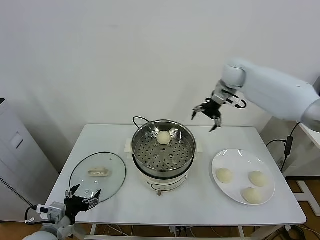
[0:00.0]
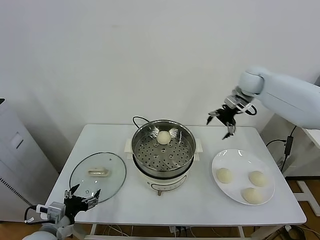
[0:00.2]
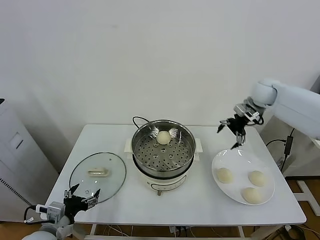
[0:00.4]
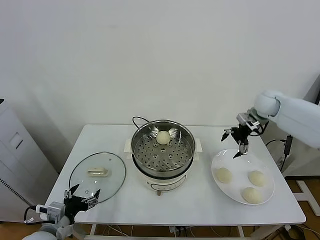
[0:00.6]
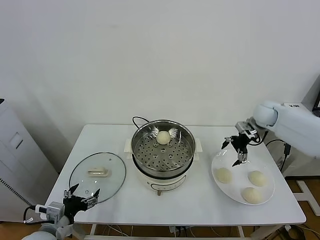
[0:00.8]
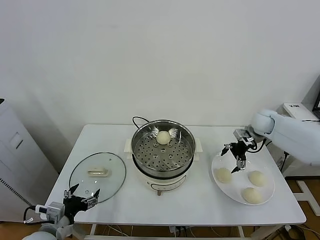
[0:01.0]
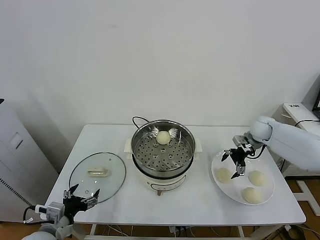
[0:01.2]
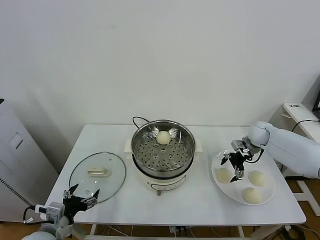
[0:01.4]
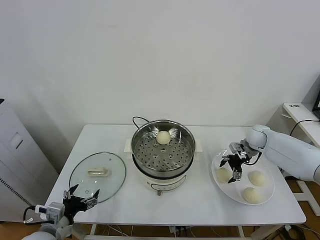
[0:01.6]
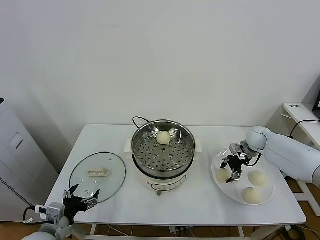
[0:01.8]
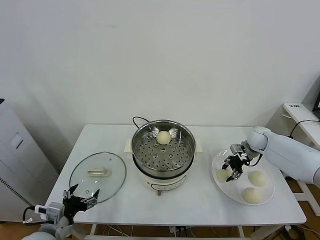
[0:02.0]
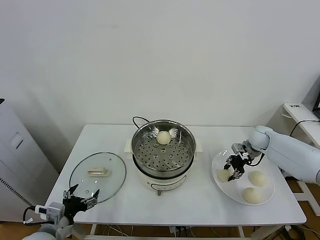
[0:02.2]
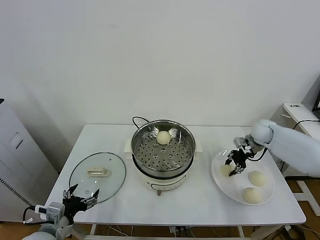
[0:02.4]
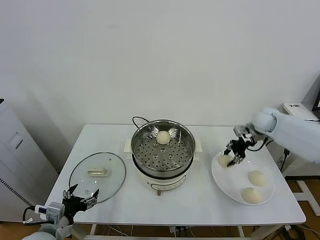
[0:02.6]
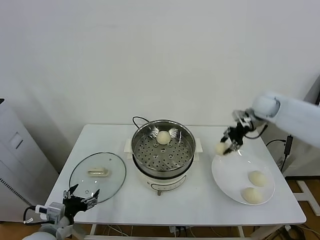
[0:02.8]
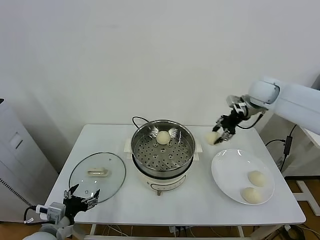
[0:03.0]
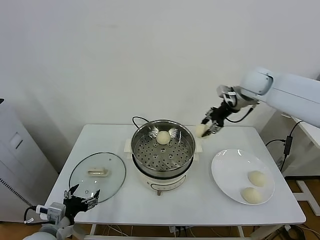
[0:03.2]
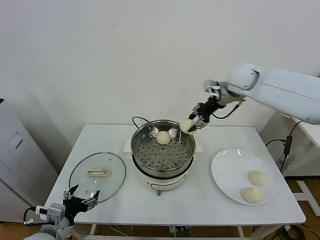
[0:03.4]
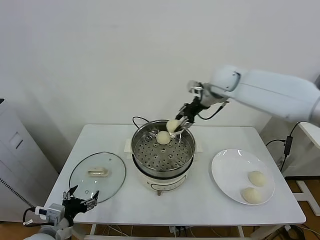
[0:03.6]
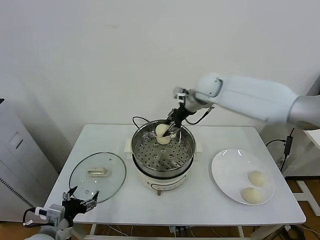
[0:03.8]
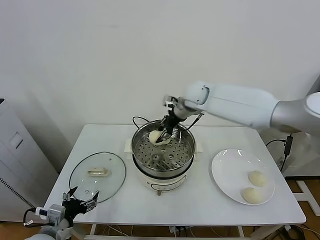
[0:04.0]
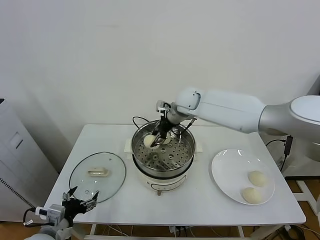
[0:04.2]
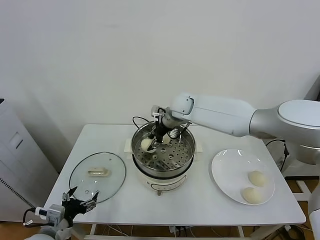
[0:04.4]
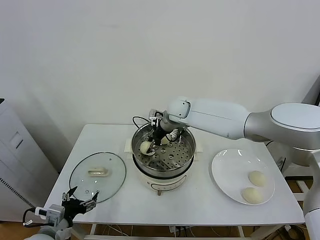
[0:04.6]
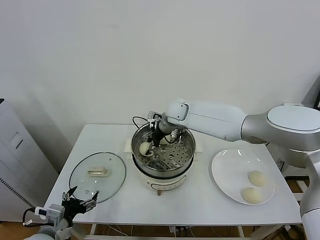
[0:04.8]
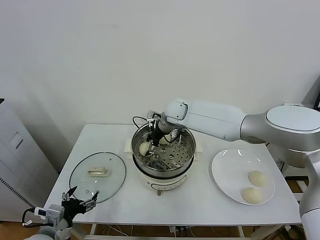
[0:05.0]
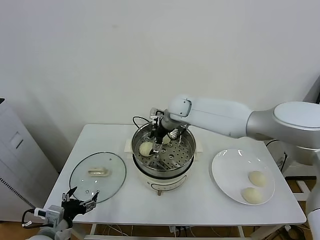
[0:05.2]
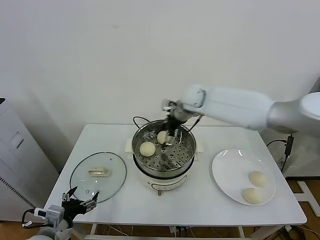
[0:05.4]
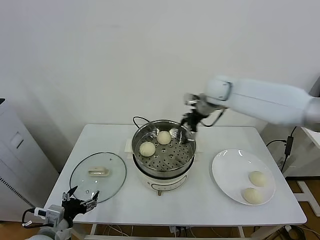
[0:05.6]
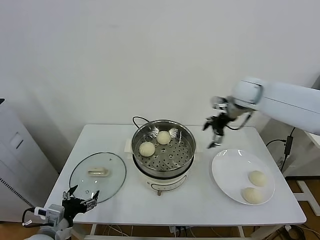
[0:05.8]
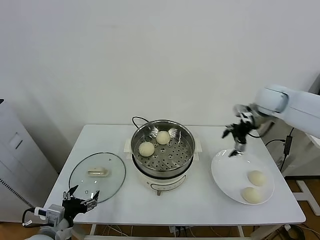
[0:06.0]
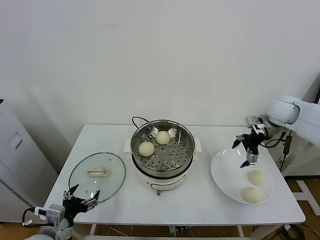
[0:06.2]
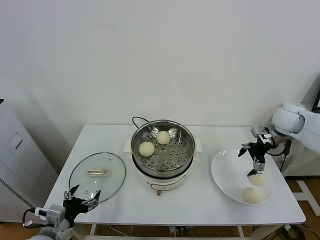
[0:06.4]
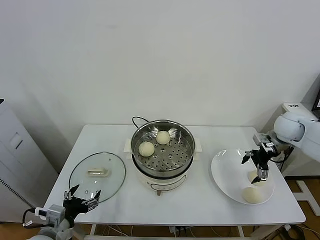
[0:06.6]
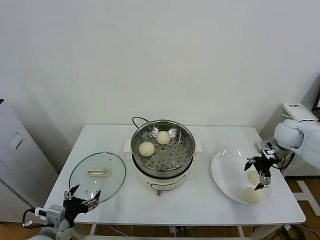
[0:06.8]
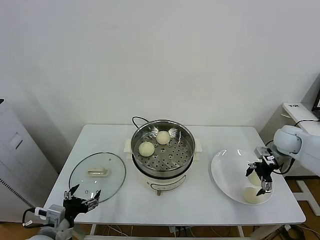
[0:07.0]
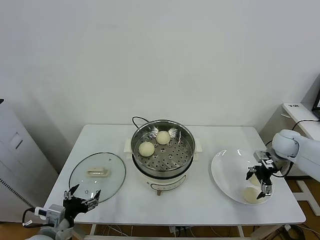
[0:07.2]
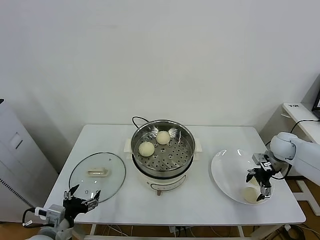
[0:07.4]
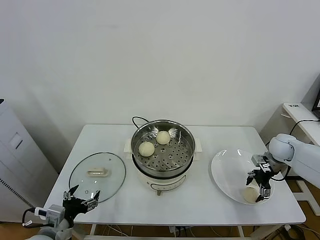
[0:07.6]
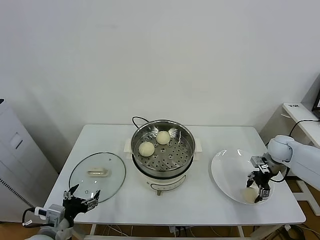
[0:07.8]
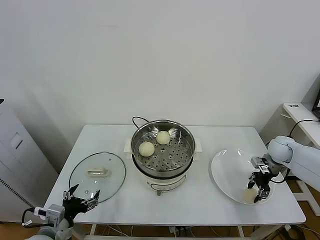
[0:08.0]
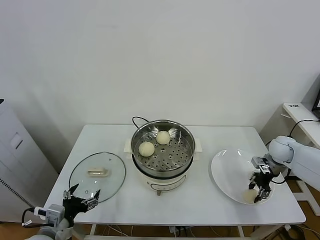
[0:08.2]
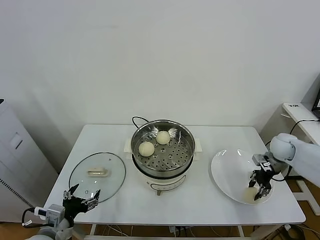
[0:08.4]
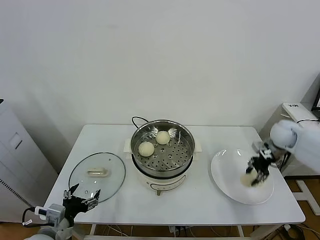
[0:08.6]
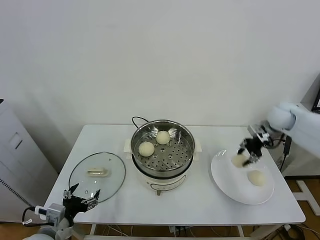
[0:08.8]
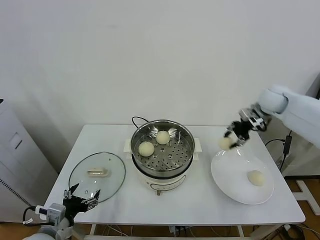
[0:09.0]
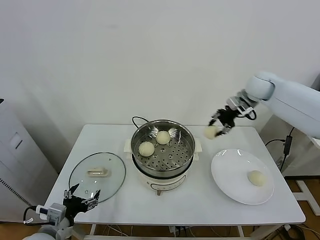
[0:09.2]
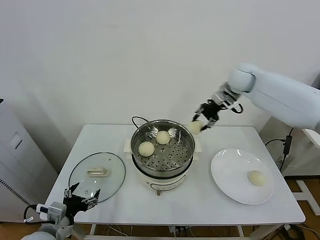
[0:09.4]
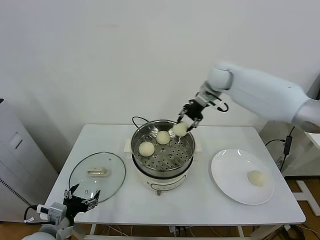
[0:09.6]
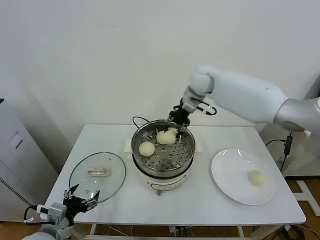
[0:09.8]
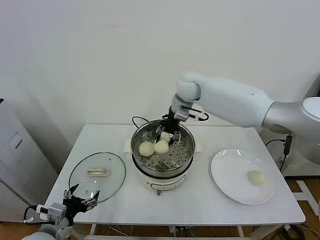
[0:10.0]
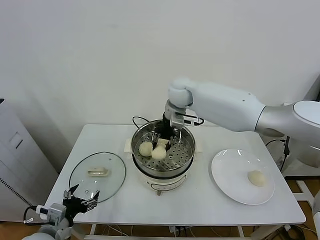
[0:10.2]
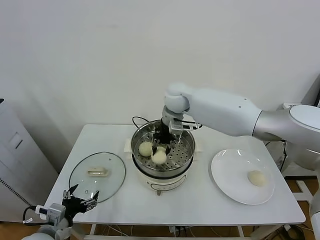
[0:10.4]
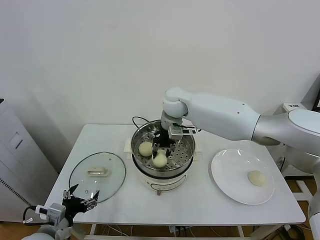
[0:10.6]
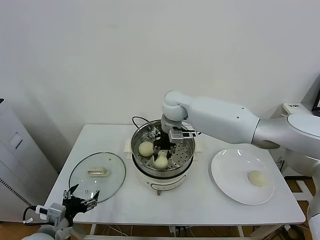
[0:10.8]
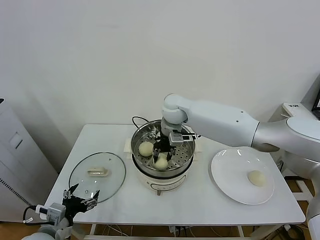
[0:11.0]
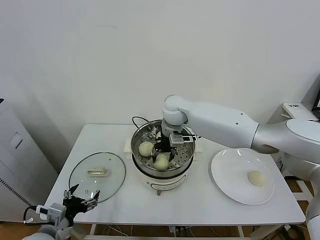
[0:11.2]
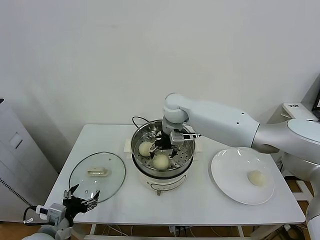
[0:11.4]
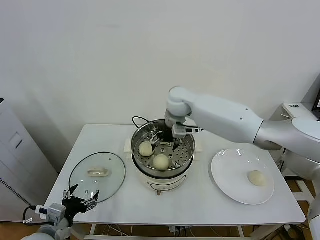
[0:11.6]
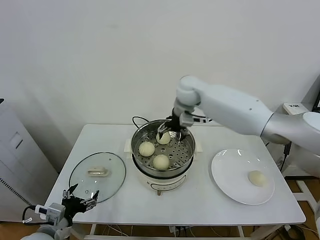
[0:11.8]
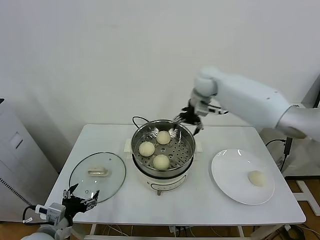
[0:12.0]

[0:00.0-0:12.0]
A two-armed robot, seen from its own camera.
Task of the whole recording: take steamed baozi put them in steamer.
Step, 0.0 to 1.8 s: Grasp the baozi in the plate with right gripper.
Step, 2.0 to 5.0 s: Place the baozi on the steamer with right gripper.
Step, 5.2 to 7.8 s: Grasp the baozi in the plate with right gripper.
Step, 8.0 to 11.4 s: Place the baozi on the steamer with right gripper.
0.0 to 1.6 s: The right gripper shifts some 30 cm downward and to the right.
1.6 to 3.0 s: The right gripper is displaced upward by some 20 cm, and closes its fingers.
3.0 to 4.4 s: The right gripper travels to the left by some 25 cm.
4.4 to 6.0 s: The right gripper is displaced to the right by roughly 25 cm, and opens its fingers.
6.0 to 7.6 s: The right gripper moves downward and to the right, some 20 cm.
7.6 to 9.0 s: The right gripper heads upward, to the left and forward, covering roughly 20 cm, and closes up.
9.0 to 10.4 s: The right gripper heads to the left, covering roughly 35 cm.
10.4 to 12.0 s: The right gripper moves to the right, approximately 10 cm, and opens its fingers.

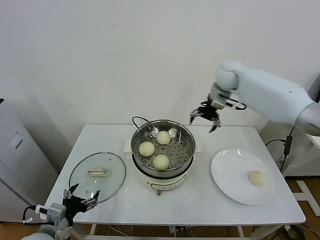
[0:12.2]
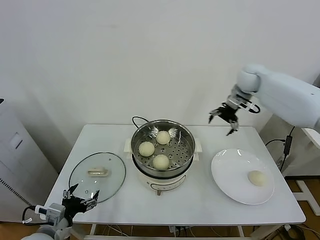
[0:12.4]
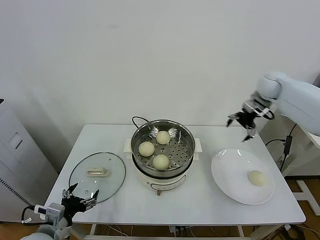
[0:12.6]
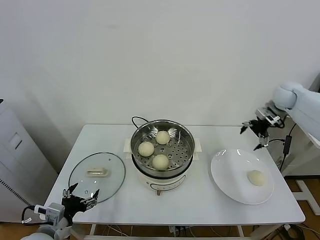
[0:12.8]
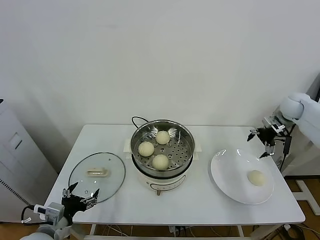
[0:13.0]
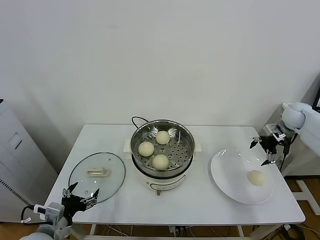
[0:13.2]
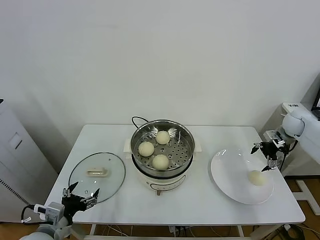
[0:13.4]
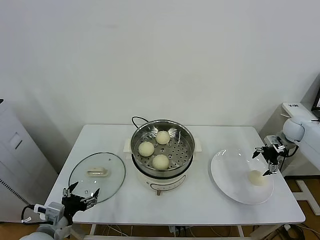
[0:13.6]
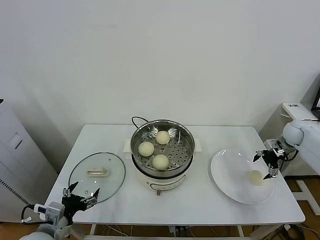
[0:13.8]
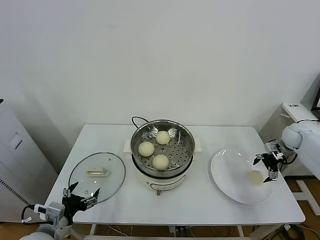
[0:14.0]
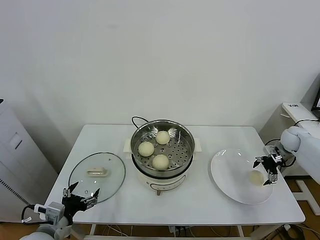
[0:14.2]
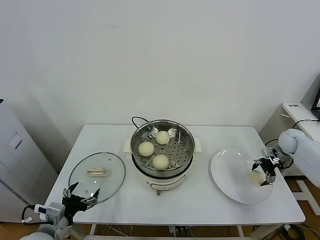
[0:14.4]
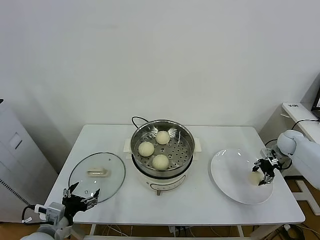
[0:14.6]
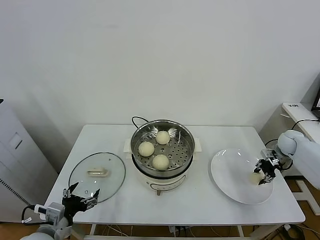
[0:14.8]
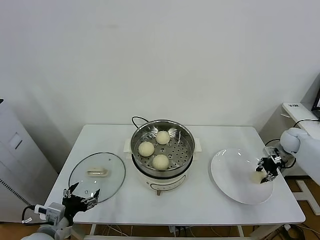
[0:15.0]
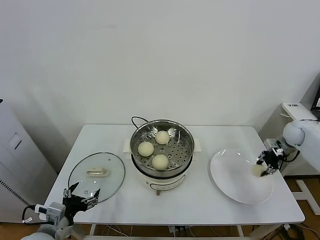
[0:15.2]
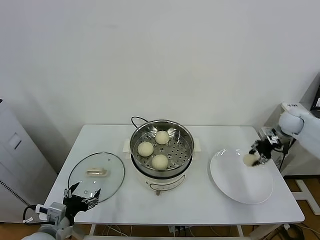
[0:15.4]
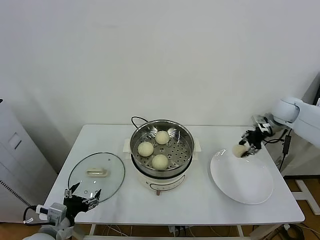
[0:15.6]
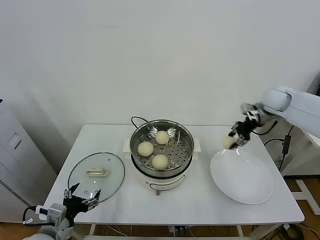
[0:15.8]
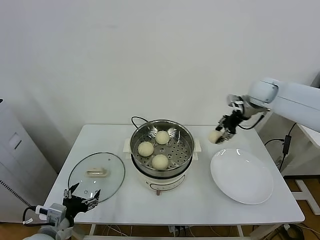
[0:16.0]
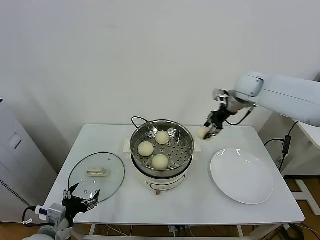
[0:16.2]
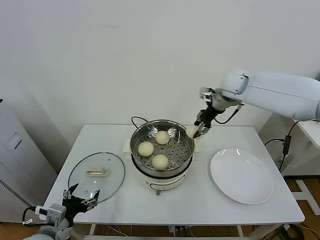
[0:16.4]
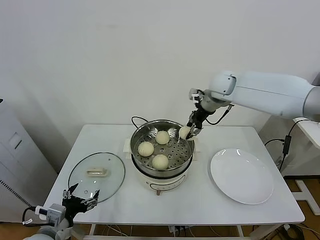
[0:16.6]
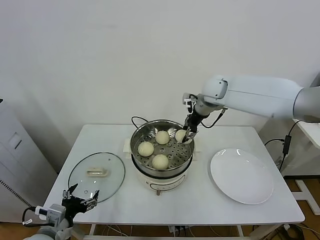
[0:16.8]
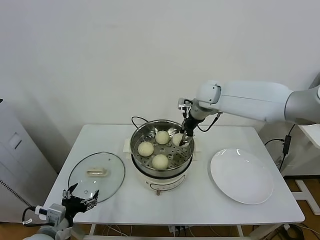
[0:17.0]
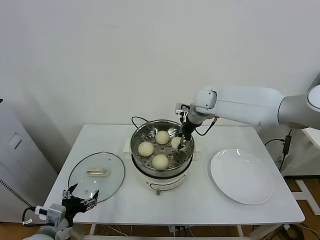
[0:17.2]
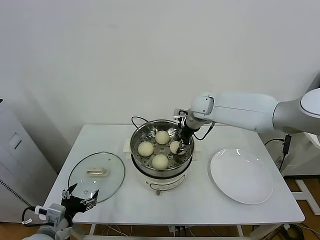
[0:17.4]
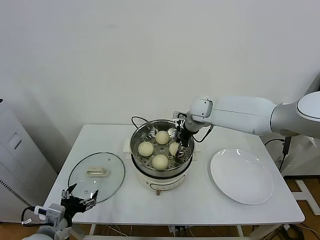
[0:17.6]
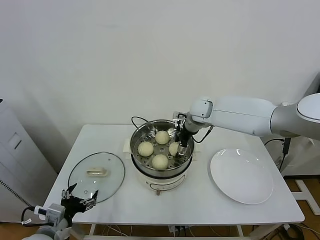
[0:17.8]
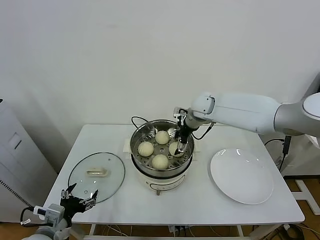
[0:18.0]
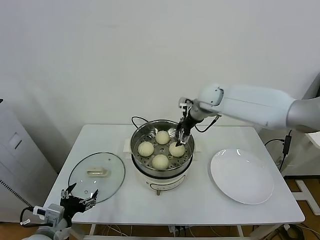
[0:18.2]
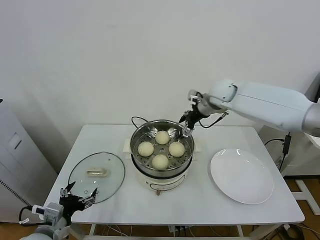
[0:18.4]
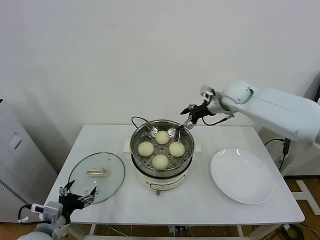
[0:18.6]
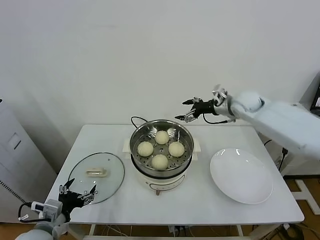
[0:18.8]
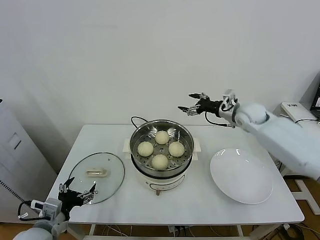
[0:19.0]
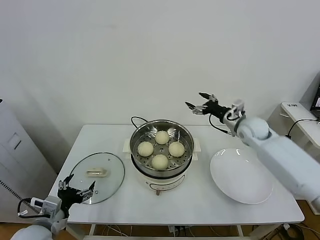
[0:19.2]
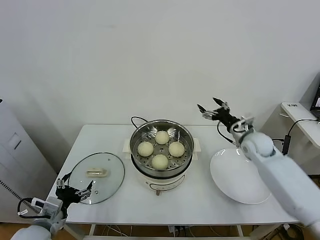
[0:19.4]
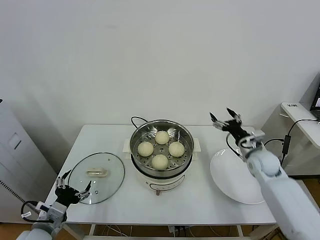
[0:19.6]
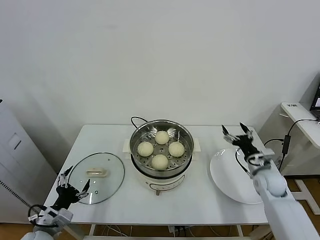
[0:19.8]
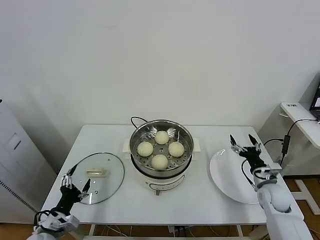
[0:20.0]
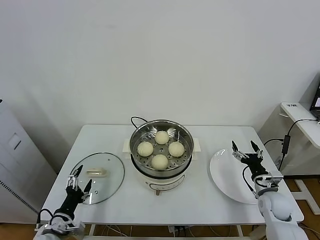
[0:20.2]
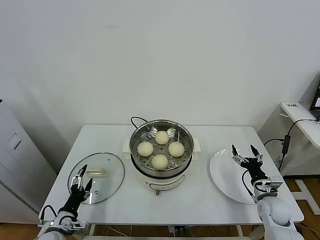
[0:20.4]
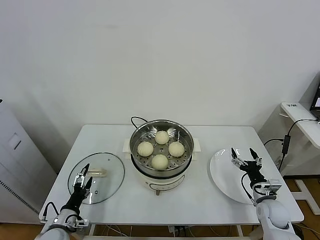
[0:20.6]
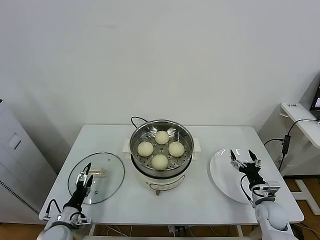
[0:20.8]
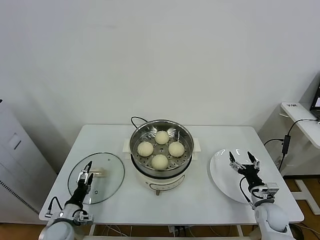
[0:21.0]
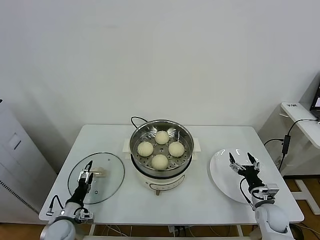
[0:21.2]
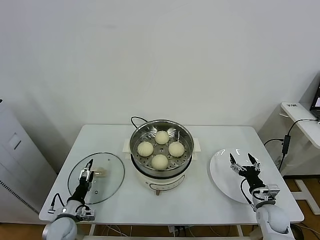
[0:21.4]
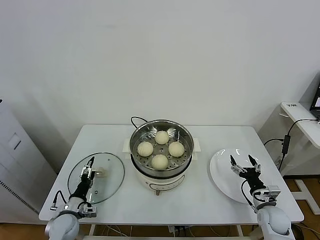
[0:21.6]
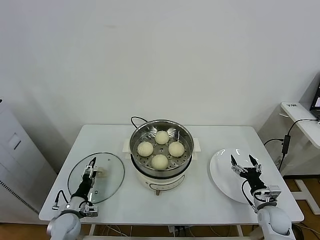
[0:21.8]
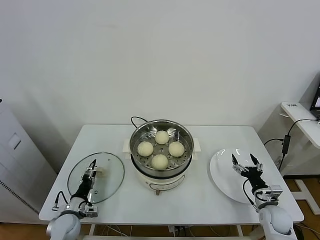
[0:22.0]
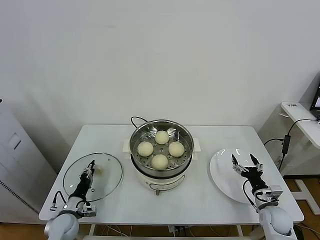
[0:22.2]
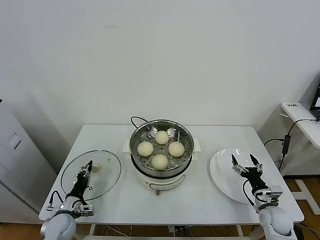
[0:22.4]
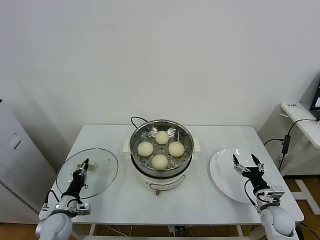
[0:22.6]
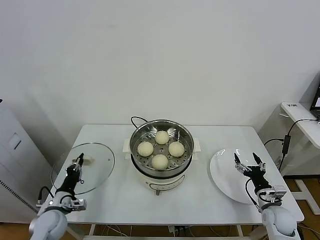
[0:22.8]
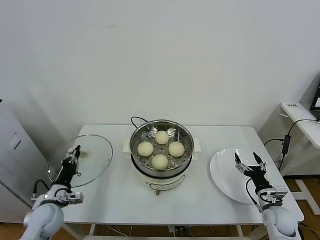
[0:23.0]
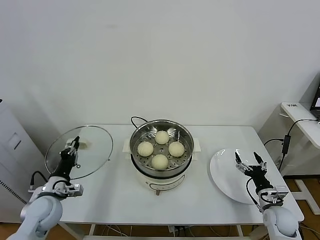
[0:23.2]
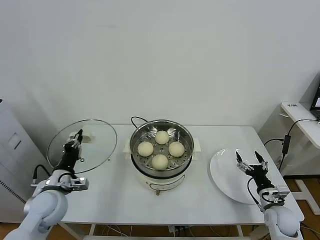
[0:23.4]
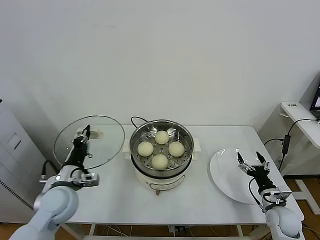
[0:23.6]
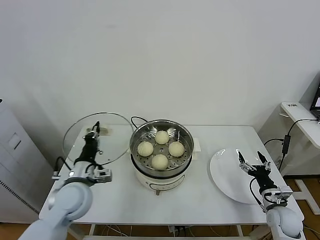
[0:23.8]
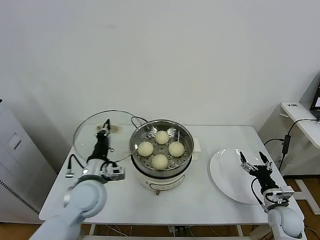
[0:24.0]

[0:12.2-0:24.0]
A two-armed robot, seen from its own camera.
Task of the whole recording: take steamed baozi put them in steamer.
Step, 12.2 to 14.6 s: Grasp the baozi in the plate with right gripper.
Step, 14.8 to 18.0 s: Place the baozi on the steamer with right gripper.
Step, 18.2 to 22.4 s: Grasp the pot lid with left gripper.
12.2 to 13.6 s: The right gripper goes roughly 35 cm to the right and downward.
13.6 to 15.2 s: The right gripper closes.
15.2 to 16.6 s: The right gripper travels to the left and upward by about 35 cm.
16.6 to 18.2 s: The right gripper heads downward, covering some 5 cm, and opens its fingers.
18.2 to 19.6 s: The right gripper travels to the right, downward and backward by roughly 30 cm.
19.6 to 21.0 s: The right gripper shifts about 20 cm downward and backward, while the left gripper shifts about 15 cm downward.
21.0 to 22.6 s: The left gripper closes.
22.6 to 24.0 s: The left gripper moves upward and to the right, about 25 cm.
